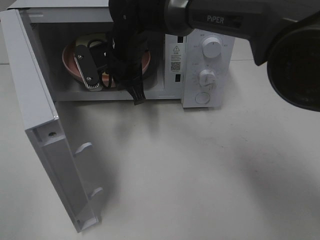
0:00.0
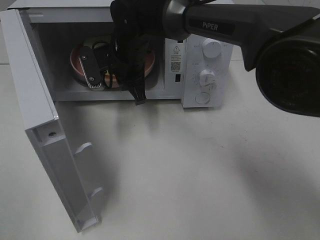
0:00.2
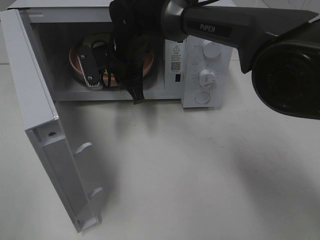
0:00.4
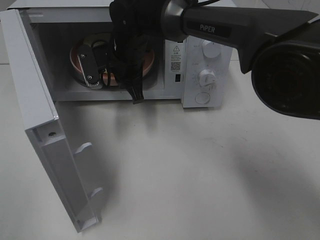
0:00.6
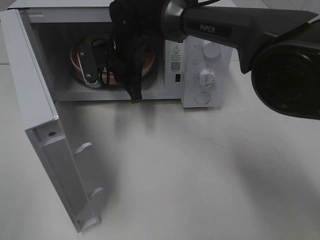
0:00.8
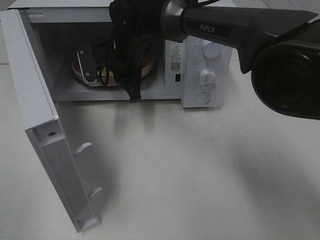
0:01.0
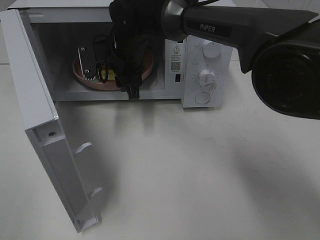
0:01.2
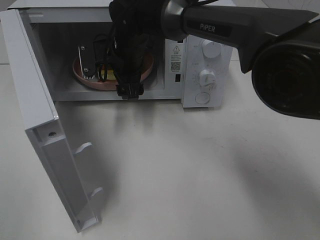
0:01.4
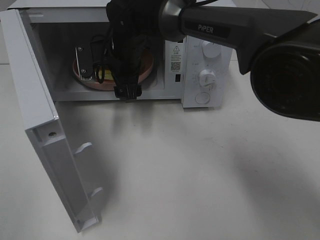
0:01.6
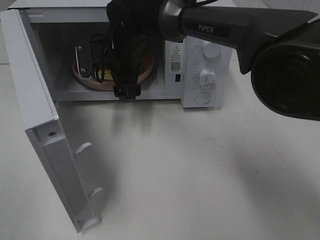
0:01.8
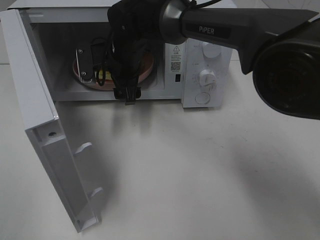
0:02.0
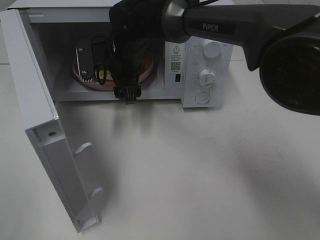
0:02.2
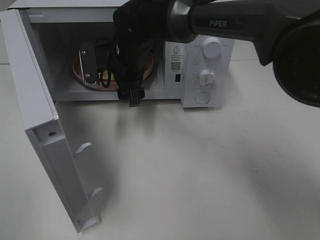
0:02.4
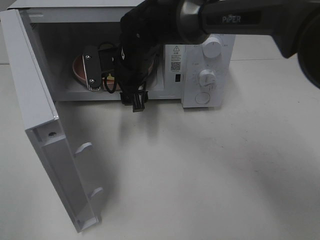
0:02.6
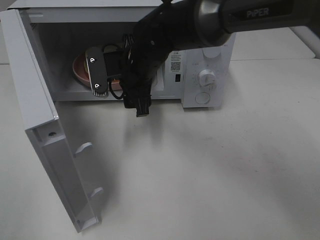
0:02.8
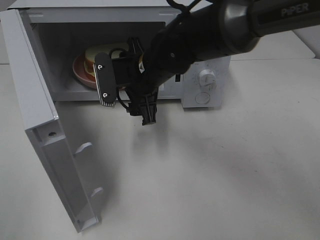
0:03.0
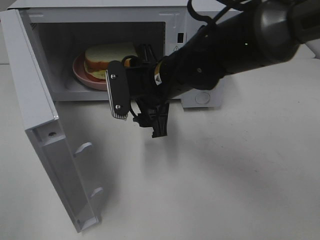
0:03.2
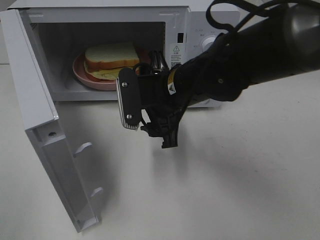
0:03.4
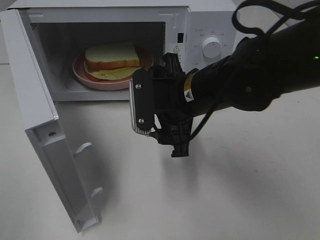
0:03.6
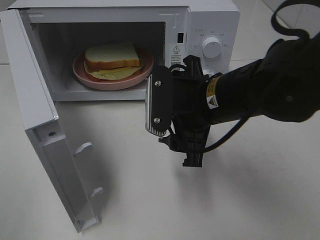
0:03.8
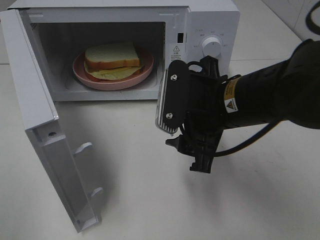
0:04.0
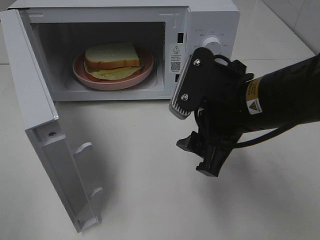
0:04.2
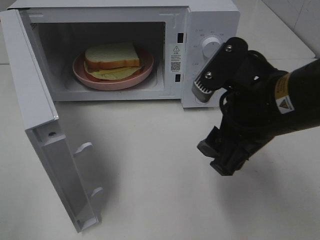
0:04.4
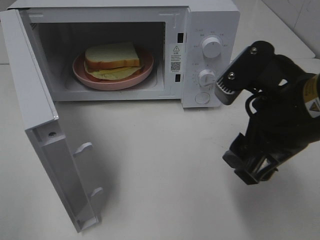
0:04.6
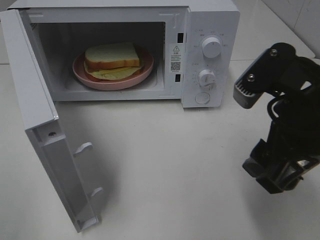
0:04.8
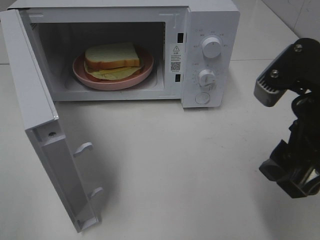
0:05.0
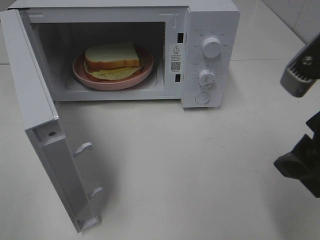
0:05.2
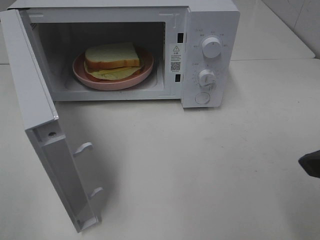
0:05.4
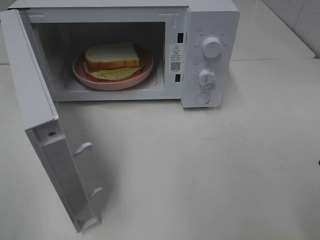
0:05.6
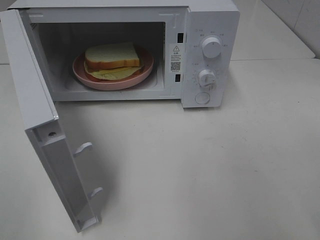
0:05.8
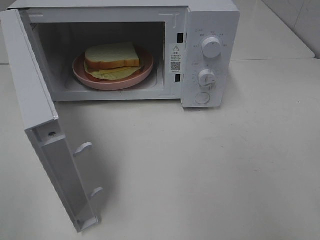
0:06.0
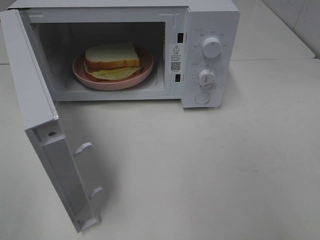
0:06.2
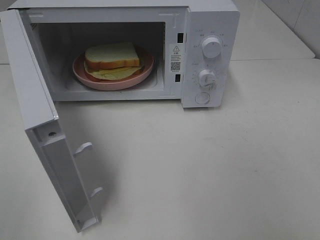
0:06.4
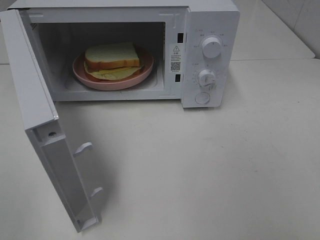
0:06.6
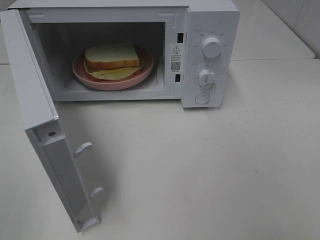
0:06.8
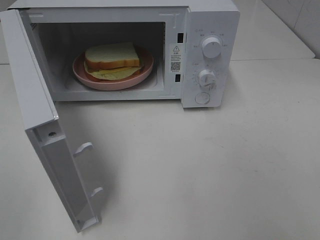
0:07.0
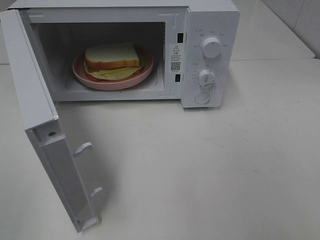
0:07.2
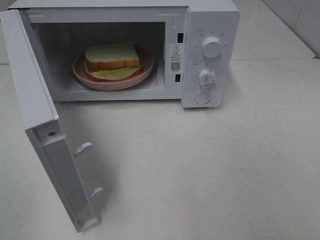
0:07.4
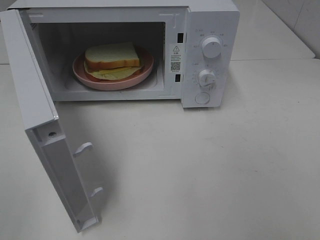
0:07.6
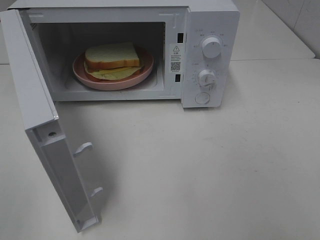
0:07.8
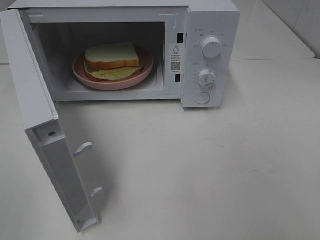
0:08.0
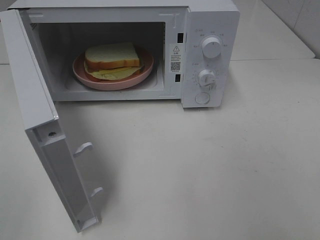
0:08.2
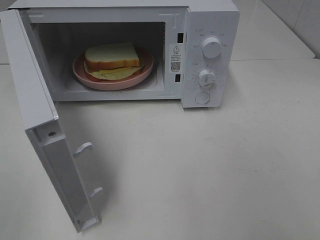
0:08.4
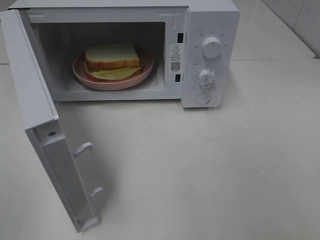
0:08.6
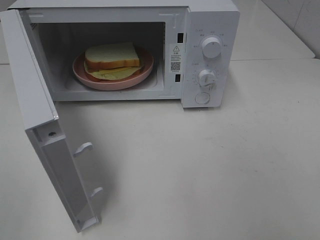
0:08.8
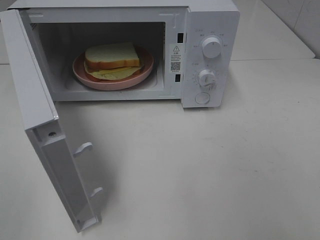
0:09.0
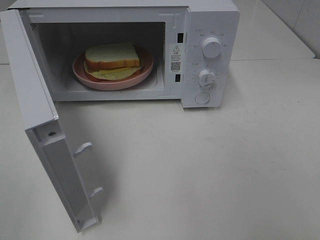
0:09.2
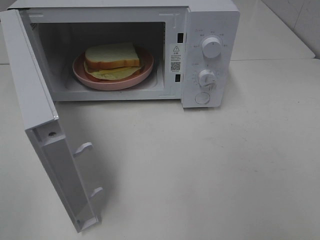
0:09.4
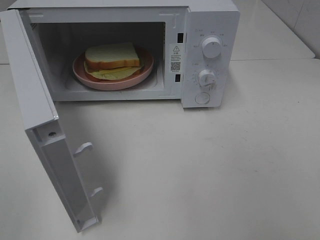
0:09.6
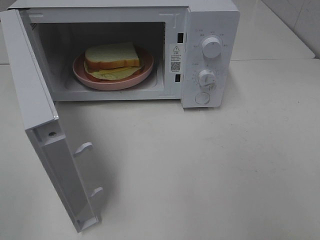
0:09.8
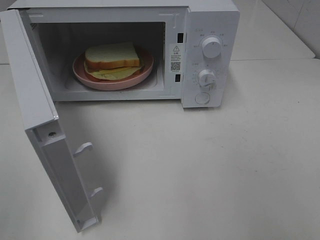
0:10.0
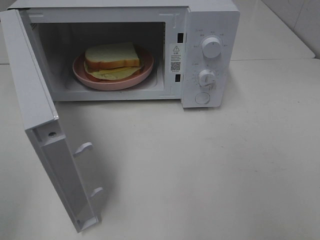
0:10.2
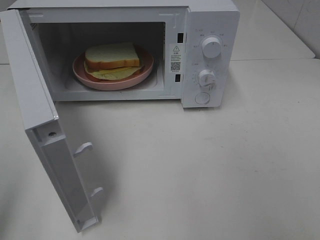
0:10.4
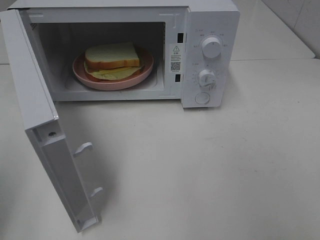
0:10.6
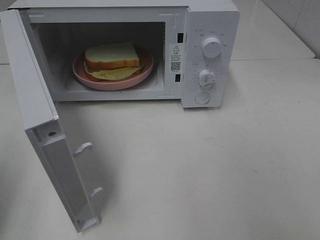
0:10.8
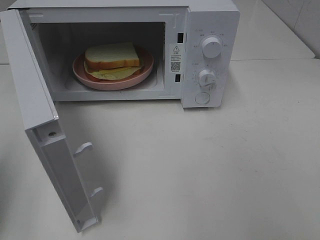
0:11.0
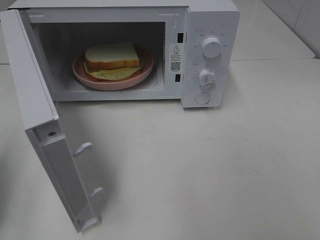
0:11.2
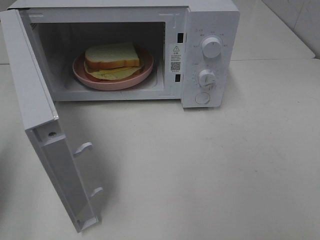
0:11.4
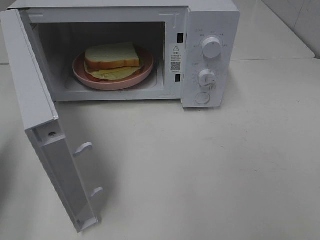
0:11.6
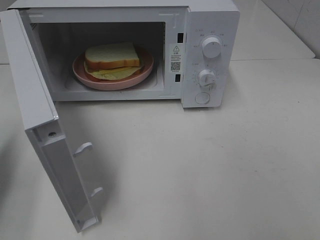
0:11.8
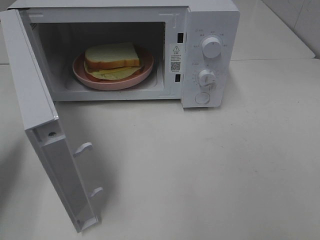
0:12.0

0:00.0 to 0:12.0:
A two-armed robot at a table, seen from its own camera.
Task of the whole recording: Heat Sandwich.
Step, 0:00.0 to 0:02.4: Right hand: place the plate in the microwave.
0:00.0 to 0:01.6: The right gripper opens its fingers.
0:01.6 to 0:03.0: The right gripper is displaced backward and to the right by approximately 10 cm.
0:03.0 to 0:04.4: The right gripper goes roughly 20 cm backward and to the right.
0:04.4 to 0:06.0: The right gripper moves to the right, backward and upward, some 20 cm.
0:07.6 to 0:09.0: Both grippers stay put.
0:10.4 to 0:12.0: The left gripper travels forward and downward by some 20 cm, and closes its fingers.

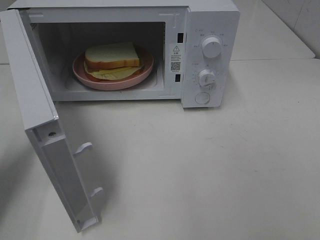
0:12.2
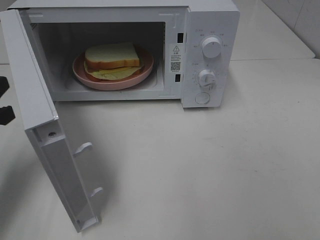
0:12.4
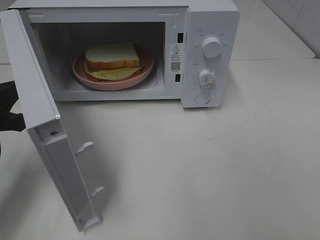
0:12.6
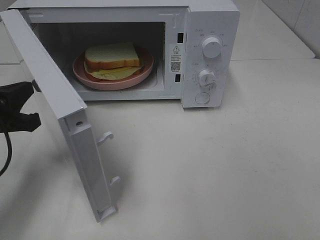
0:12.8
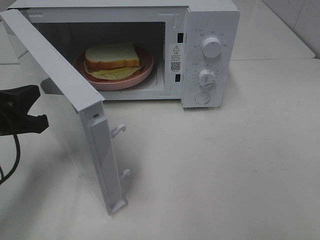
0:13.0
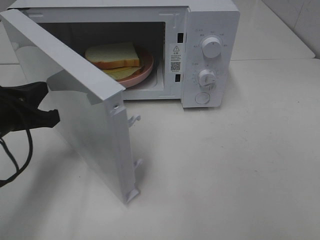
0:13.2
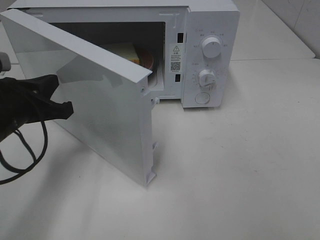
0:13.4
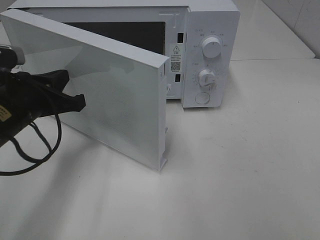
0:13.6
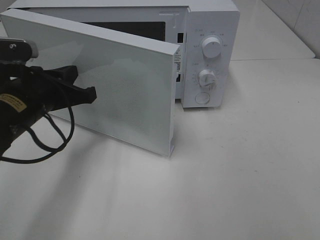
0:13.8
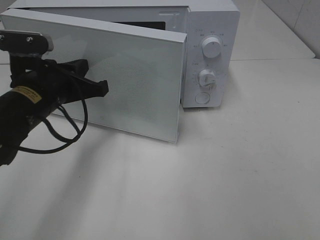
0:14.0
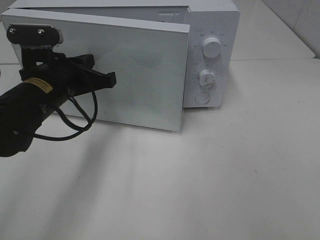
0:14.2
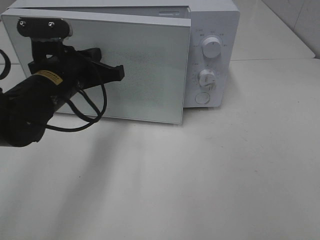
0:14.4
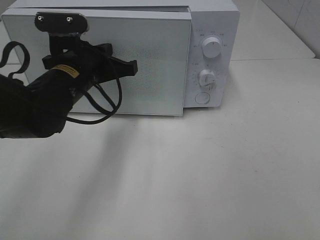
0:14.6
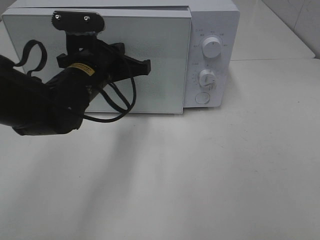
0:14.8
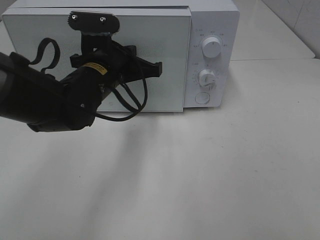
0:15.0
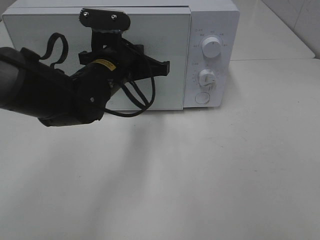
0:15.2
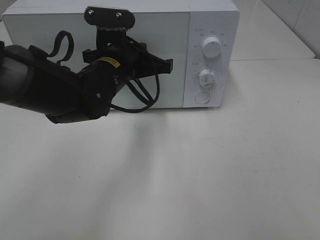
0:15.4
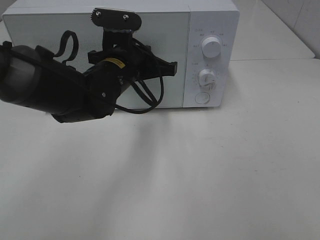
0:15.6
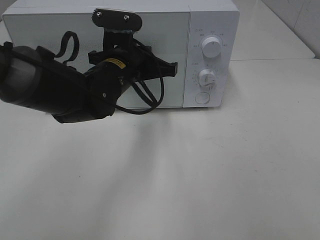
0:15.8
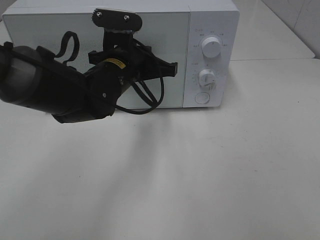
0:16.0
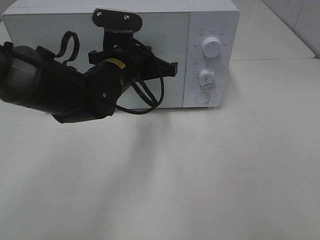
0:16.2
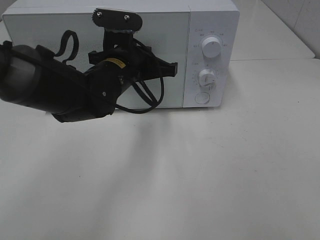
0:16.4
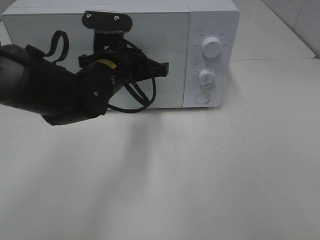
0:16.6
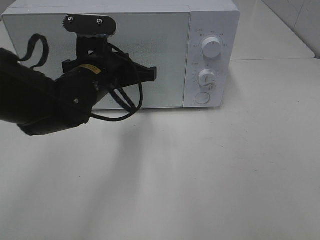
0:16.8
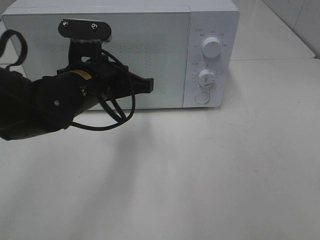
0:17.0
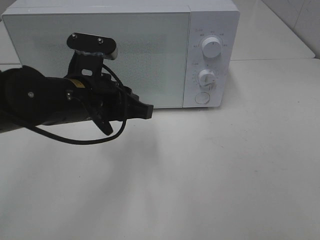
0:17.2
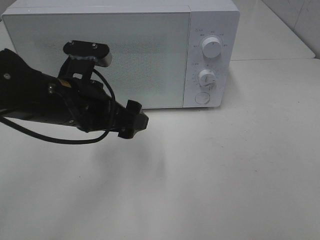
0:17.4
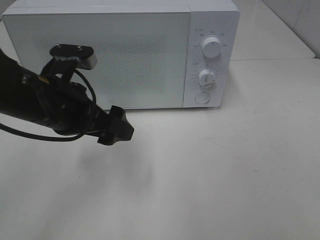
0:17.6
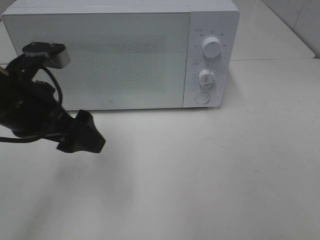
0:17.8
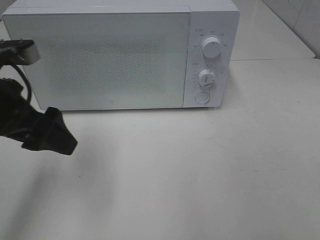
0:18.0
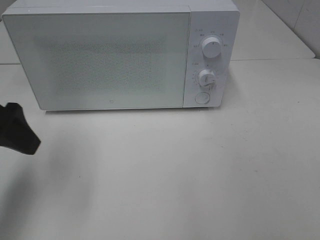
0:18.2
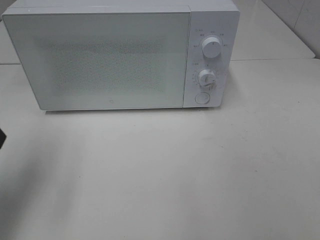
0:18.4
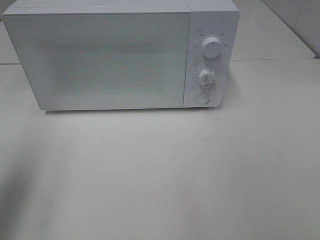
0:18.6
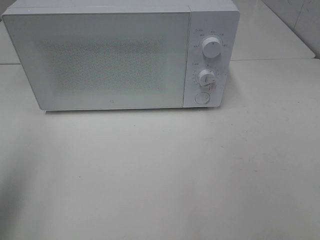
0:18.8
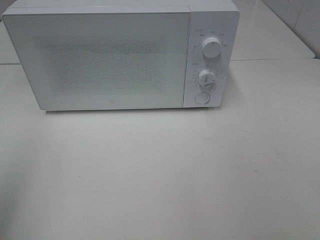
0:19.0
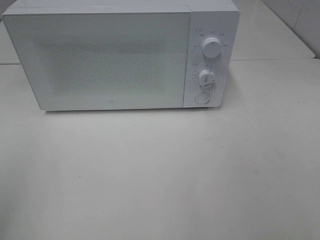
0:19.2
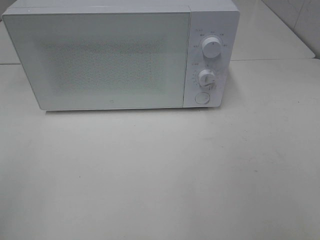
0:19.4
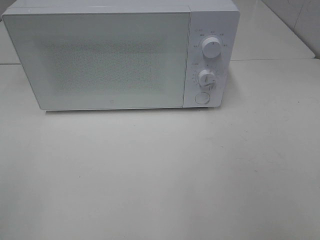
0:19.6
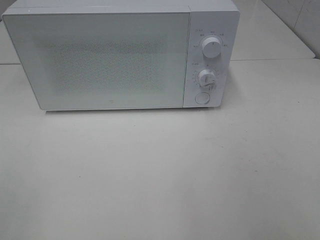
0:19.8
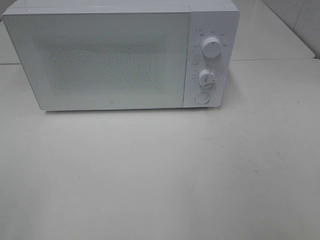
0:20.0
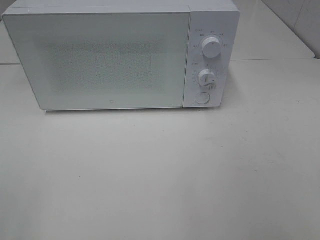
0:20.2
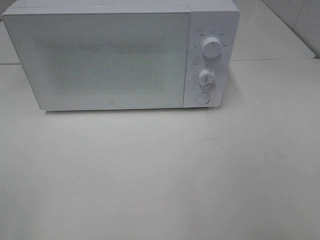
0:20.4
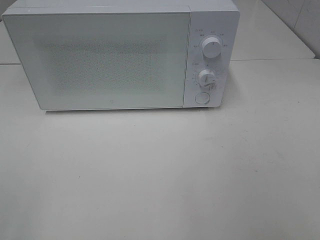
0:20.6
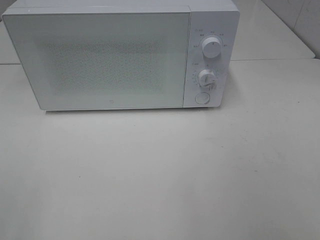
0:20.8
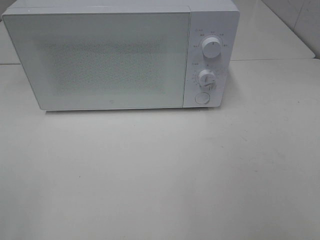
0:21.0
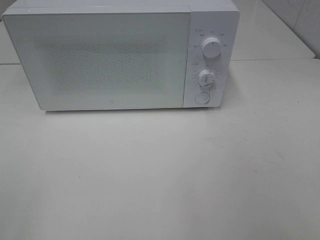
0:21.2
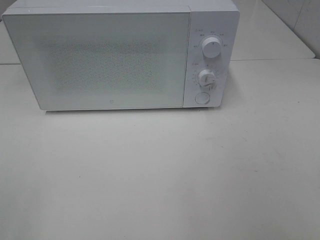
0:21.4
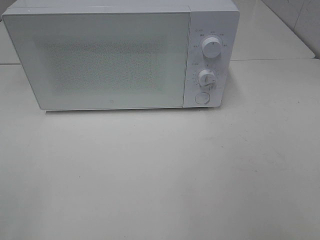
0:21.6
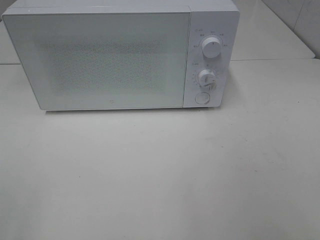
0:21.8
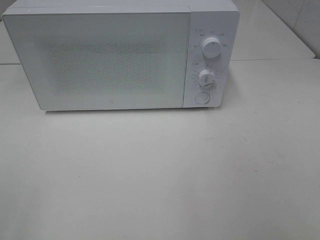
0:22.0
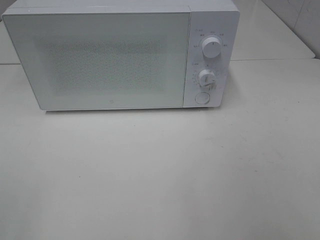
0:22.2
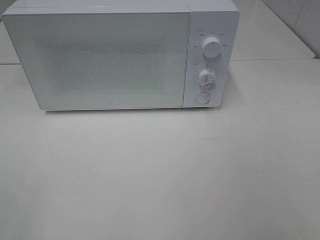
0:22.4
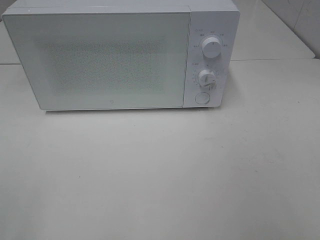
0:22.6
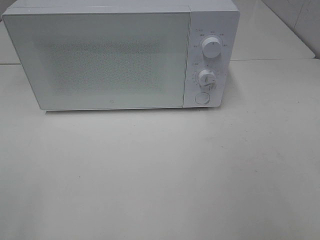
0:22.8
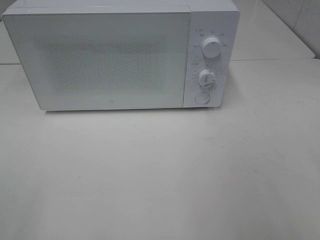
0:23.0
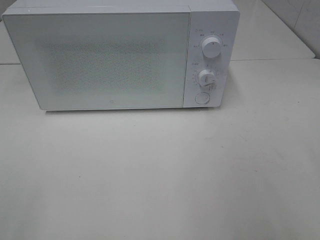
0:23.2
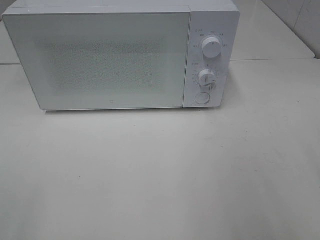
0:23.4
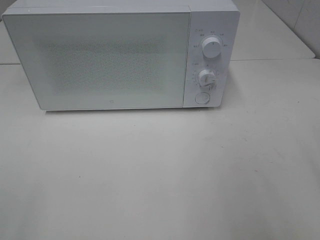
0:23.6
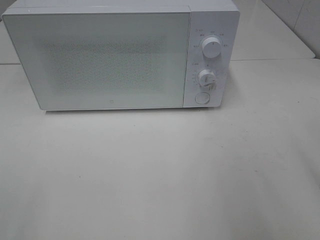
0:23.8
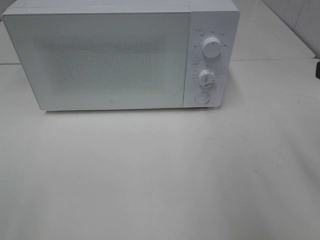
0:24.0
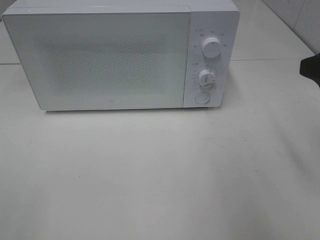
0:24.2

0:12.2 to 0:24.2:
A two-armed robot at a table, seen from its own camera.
Task of the whole recording: Heat Sandwich.
Step, 0:12.2 to 0:17.0: Left hand: close the microwave door.
0:12.2 to 0:13.8: The left gripper travels to the right by roughly 15 cm.
0:13.8 to 0:15.2: The left gripper is displaced to the right and forward by roughly 15 cm.
0:15.2 to 0:16.6: The grippers make only small movements.
0:16.6 to 0:18.2: The left gripper goes about 20 cm to the left, backward and upward, and opens.
0:18.2 to 0:19.8: The left gripper is displaced backward by some 20 cm.
0:22.6 to 0:24.2: The right gripper is displaced forward by approximately 15 cm.
